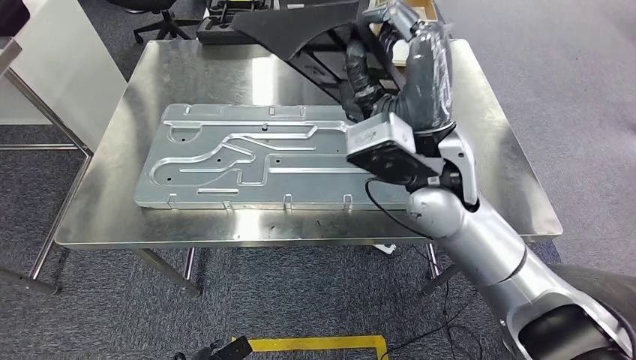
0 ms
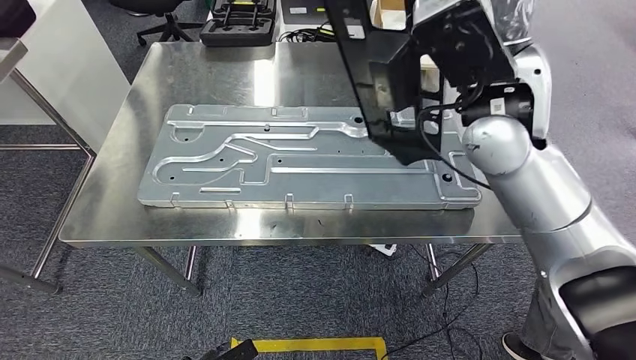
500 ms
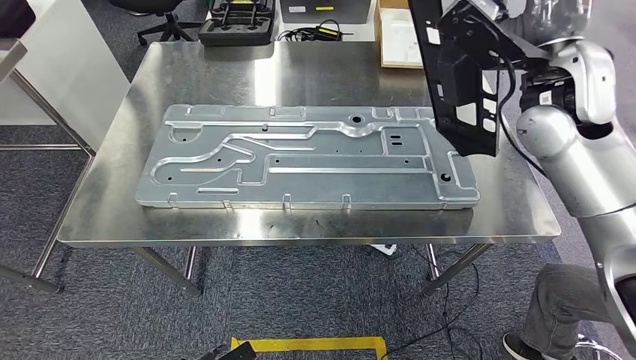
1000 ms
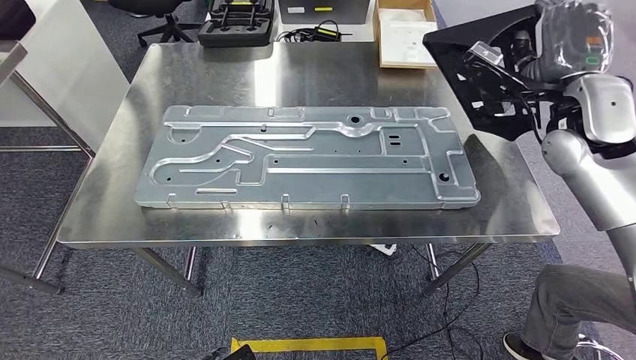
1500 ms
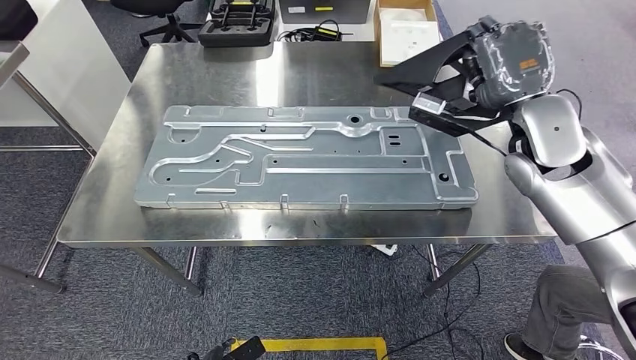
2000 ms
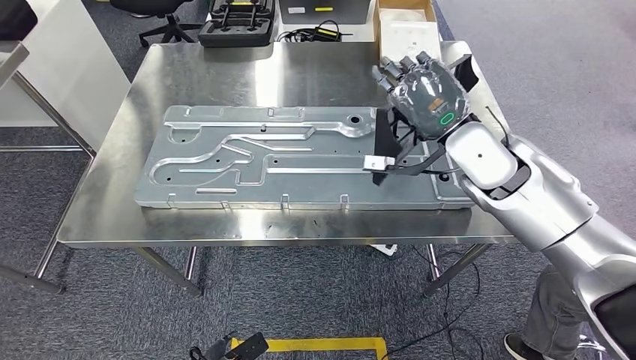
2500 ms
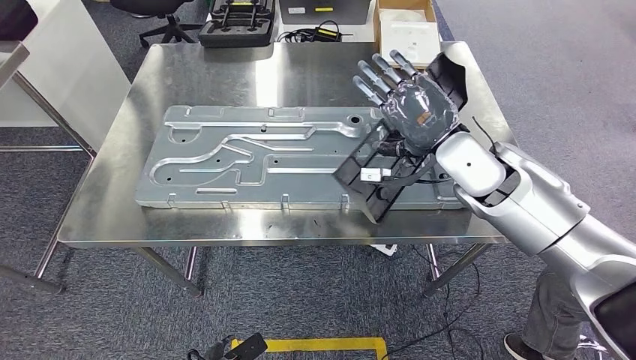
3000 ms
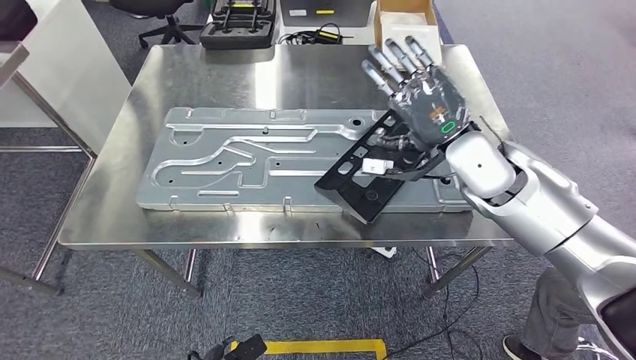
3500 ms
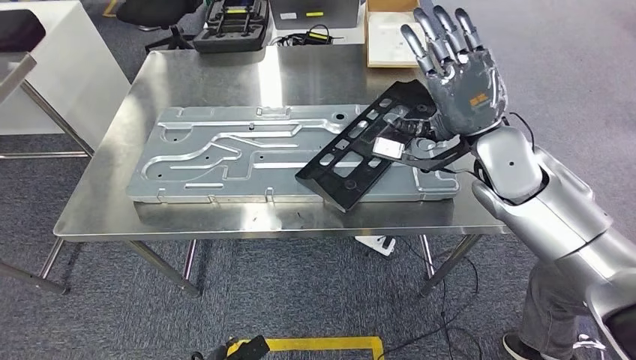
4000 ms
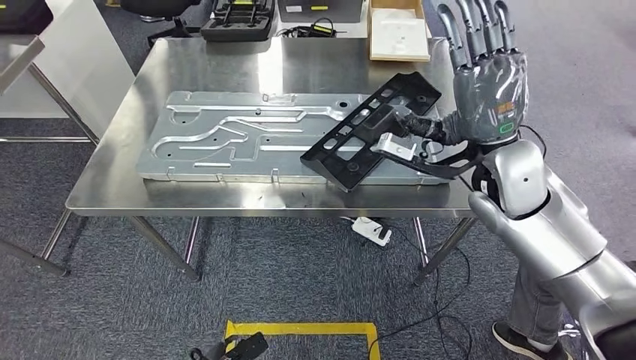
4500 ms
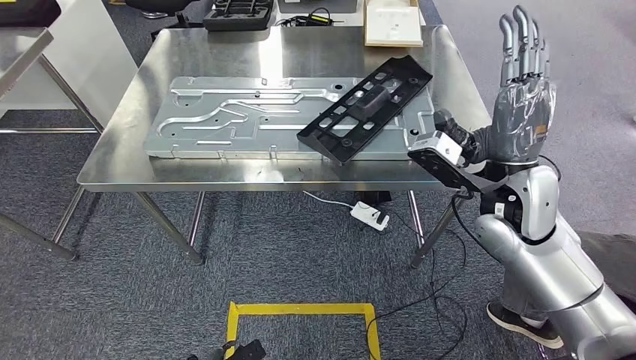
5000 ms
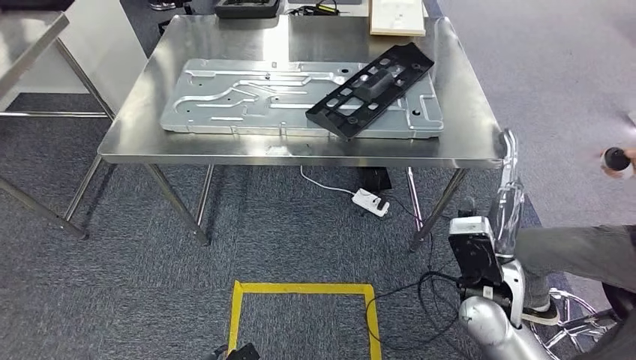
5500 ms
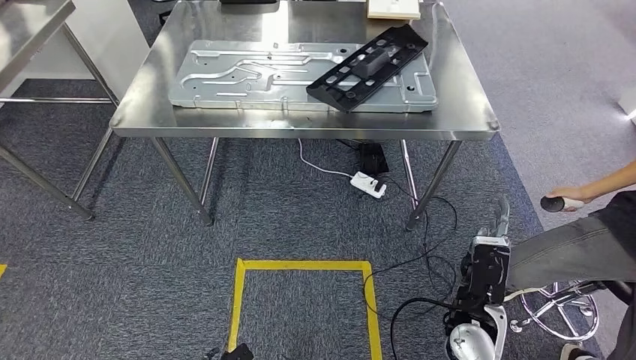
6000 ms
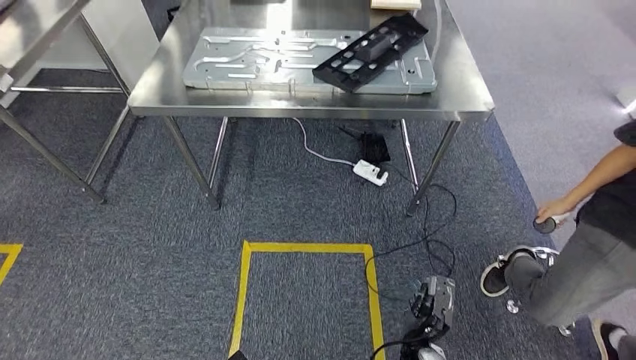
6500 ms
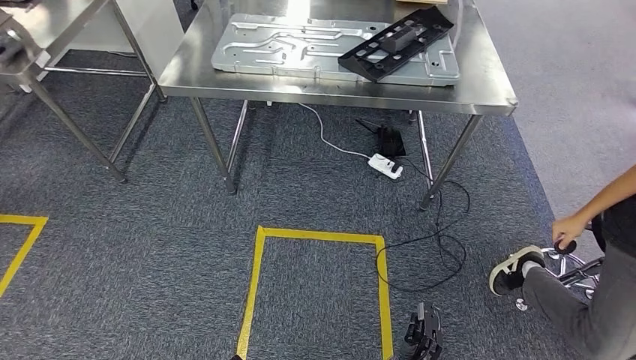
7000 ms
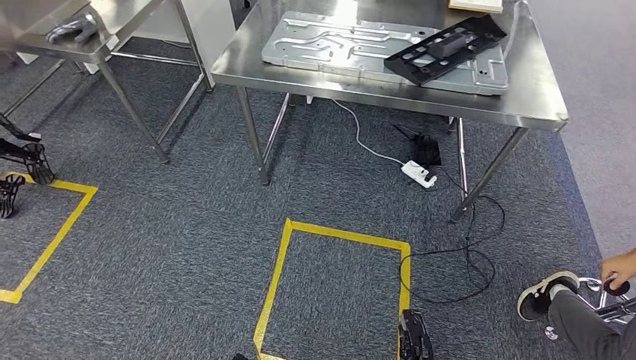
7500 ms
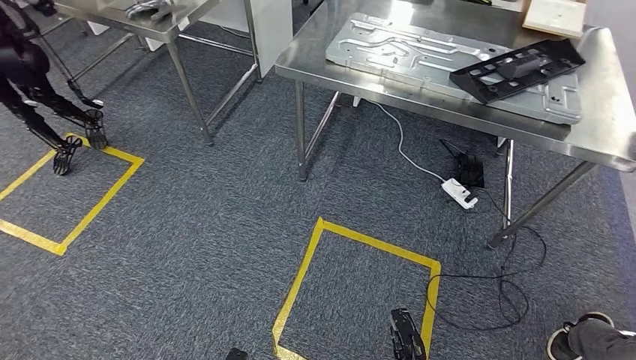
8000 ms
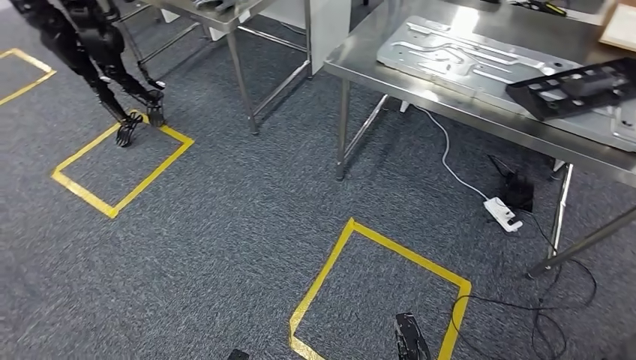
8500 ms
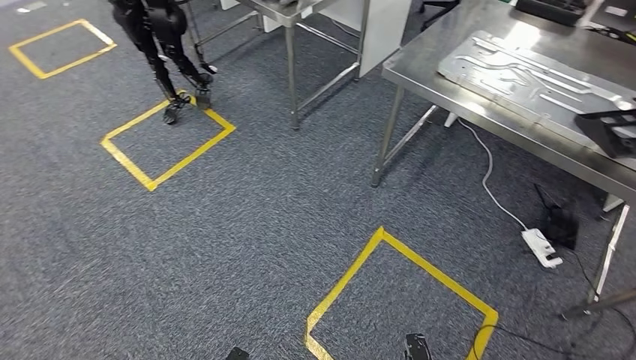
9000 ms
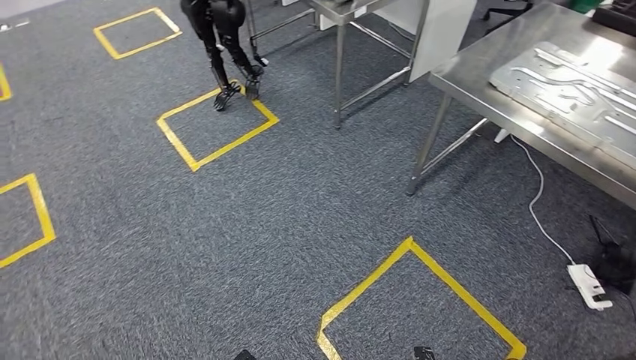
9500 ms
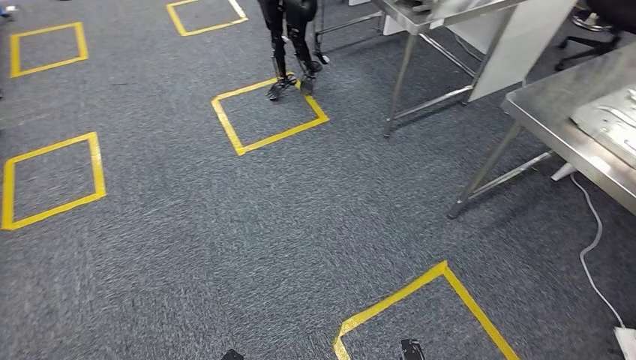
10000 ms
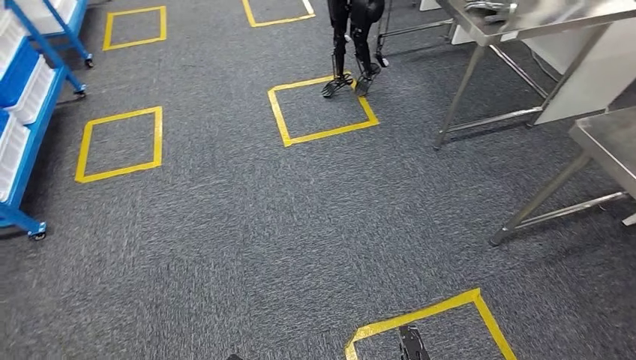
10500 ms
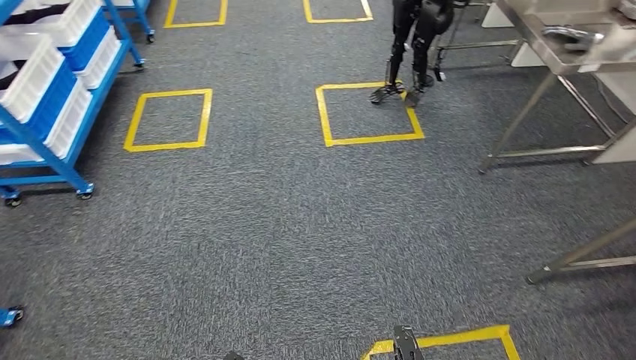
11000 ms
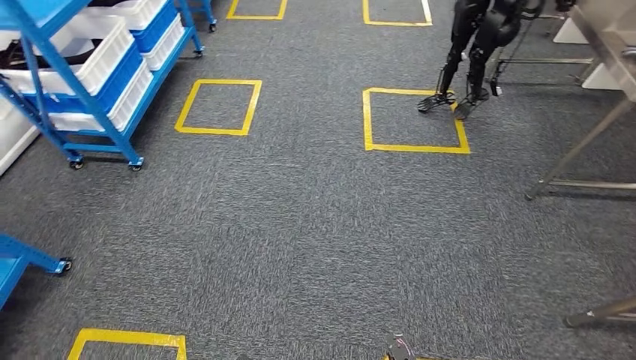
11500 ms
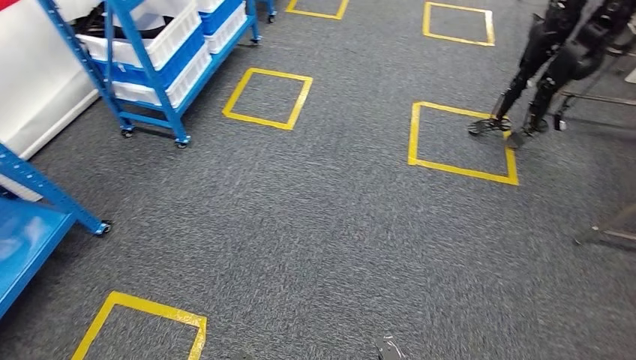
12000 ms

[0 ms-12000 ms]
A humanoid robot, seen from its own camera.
Step, 0 ms to 8500 ms: Insert the large material into the corresponding slot on the workbench.

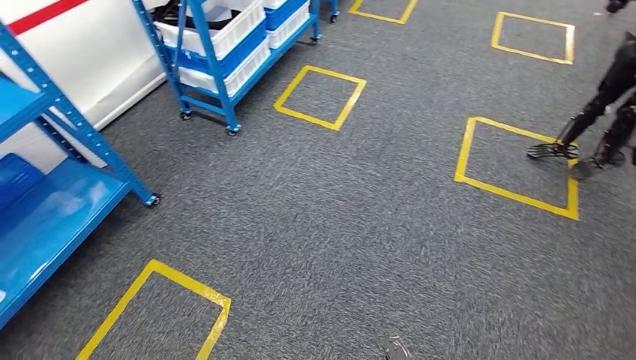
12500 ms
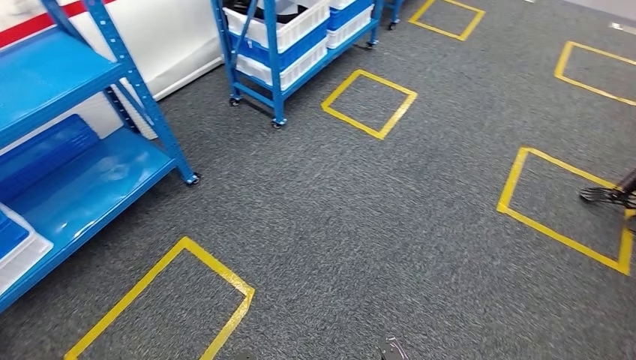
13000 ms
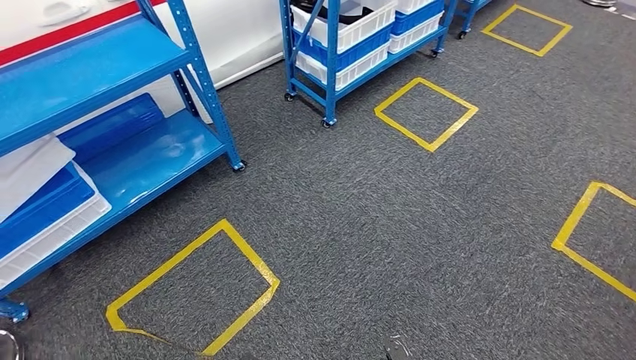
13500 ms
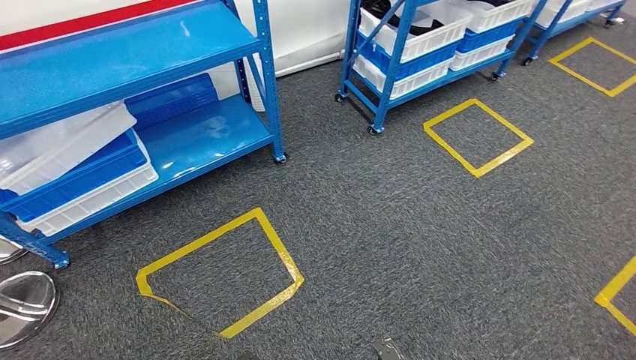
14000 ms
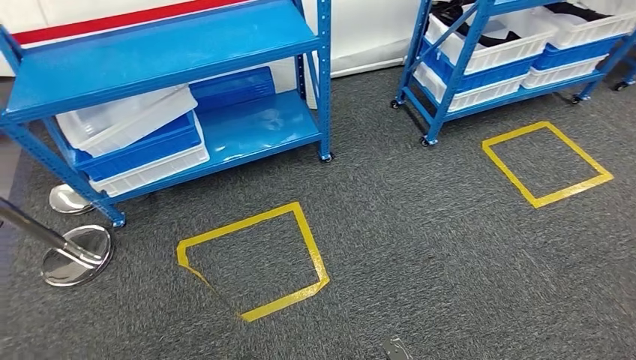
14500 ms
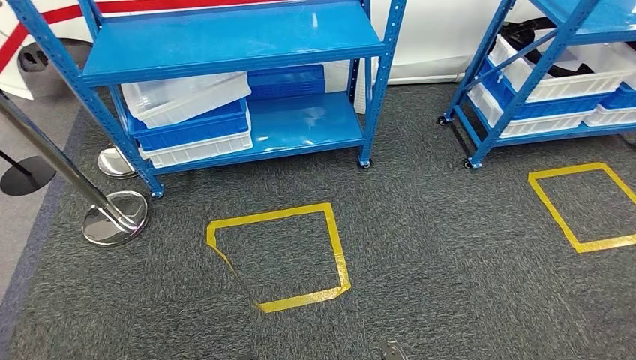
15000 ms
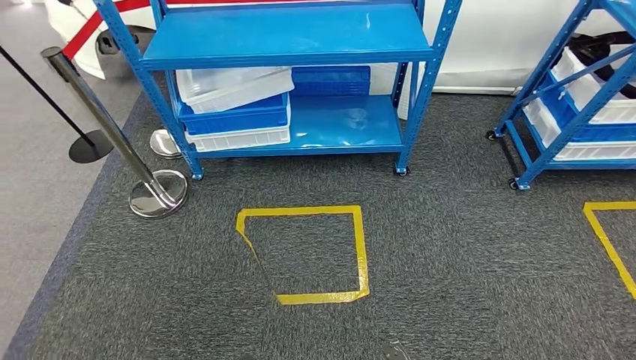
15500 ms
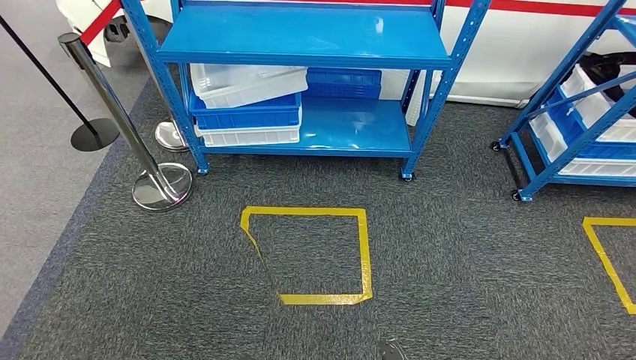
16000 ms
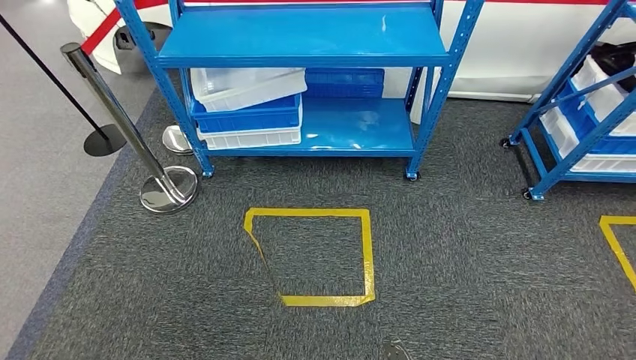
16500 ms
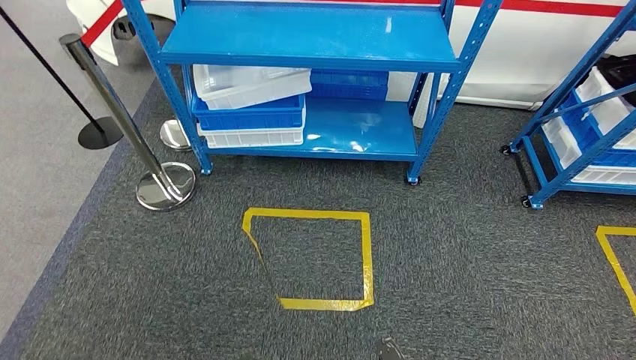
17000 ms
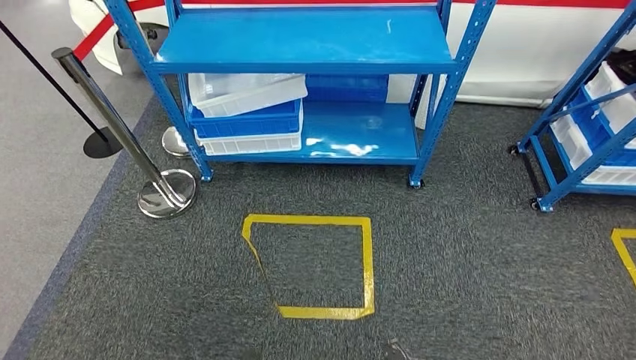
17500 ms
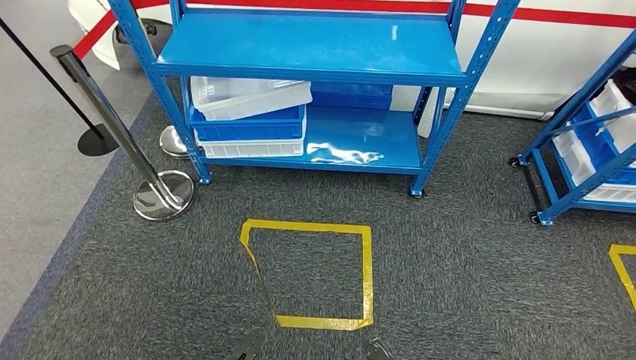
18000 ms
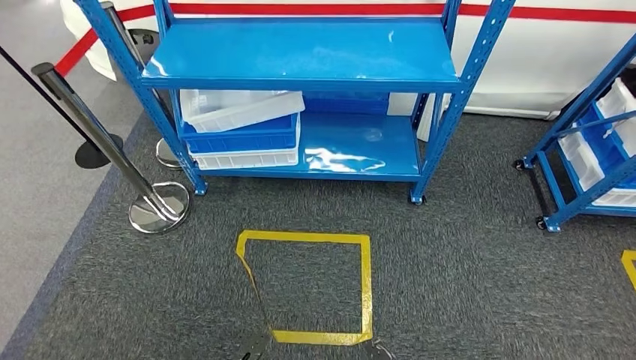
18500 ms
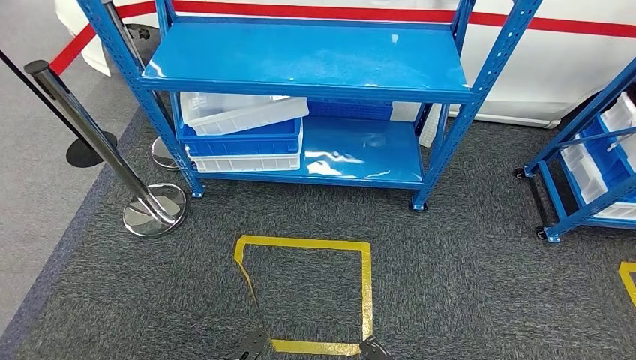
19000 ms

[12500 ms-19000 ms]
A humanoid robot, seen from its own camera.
Step, 12500 ms to 19000 ms: Move to the initial position of the shelf.
